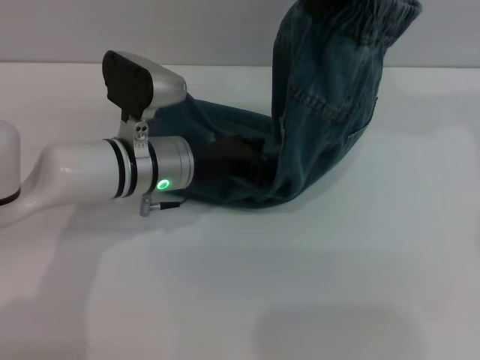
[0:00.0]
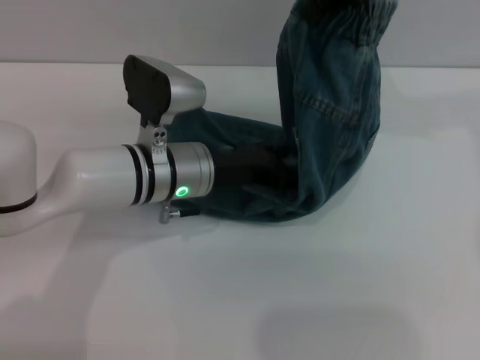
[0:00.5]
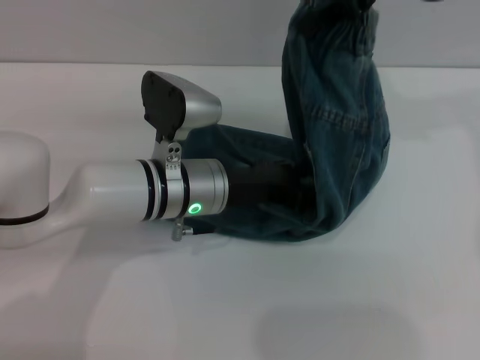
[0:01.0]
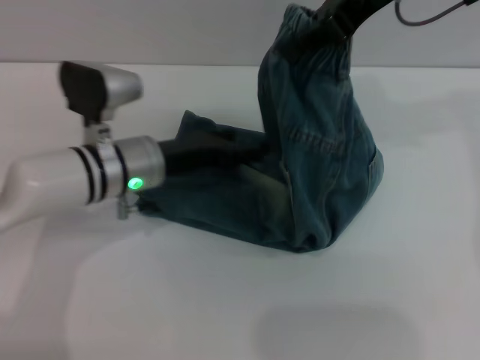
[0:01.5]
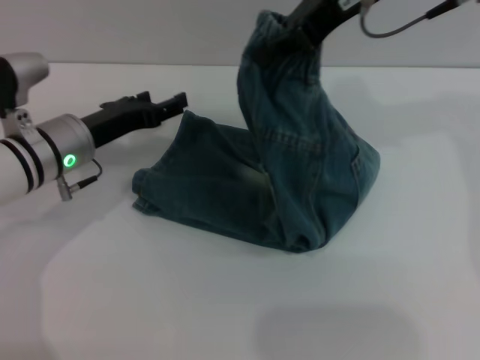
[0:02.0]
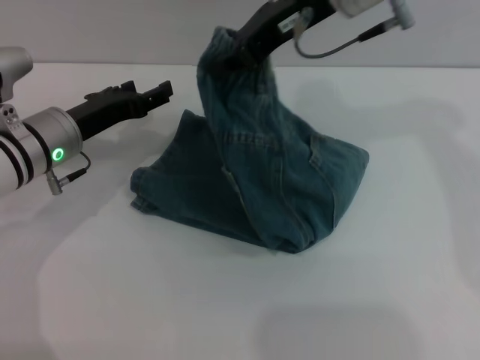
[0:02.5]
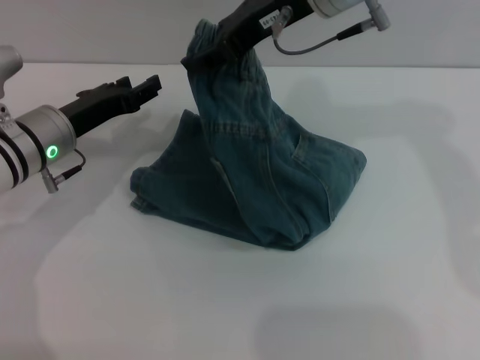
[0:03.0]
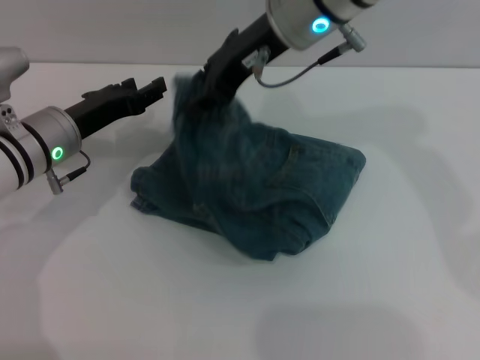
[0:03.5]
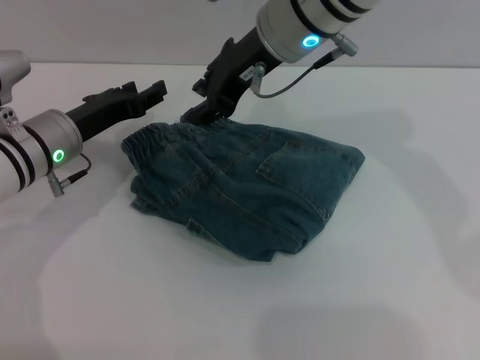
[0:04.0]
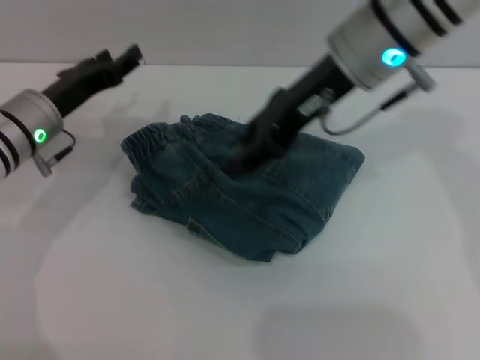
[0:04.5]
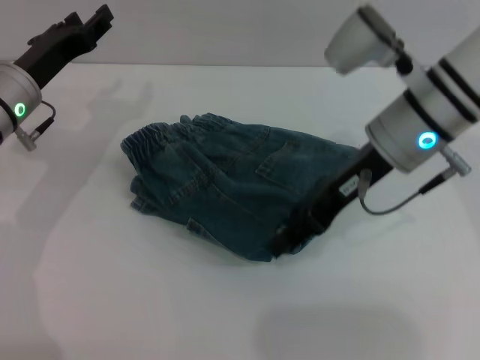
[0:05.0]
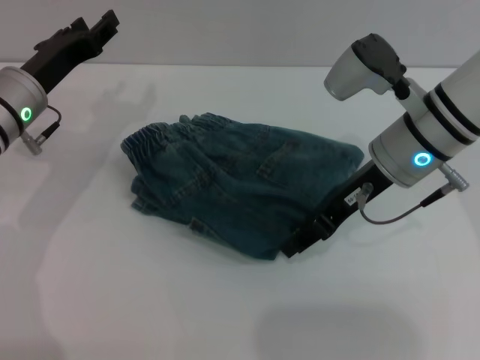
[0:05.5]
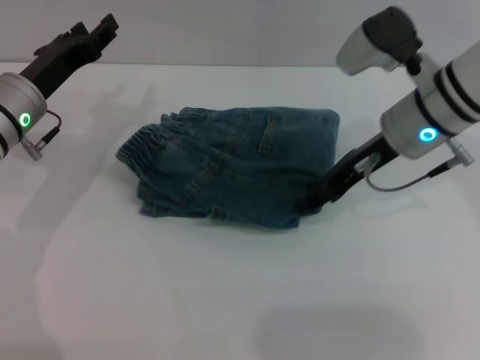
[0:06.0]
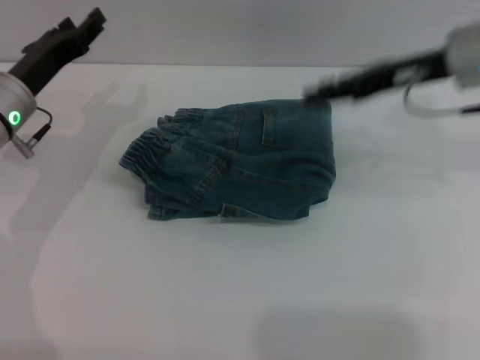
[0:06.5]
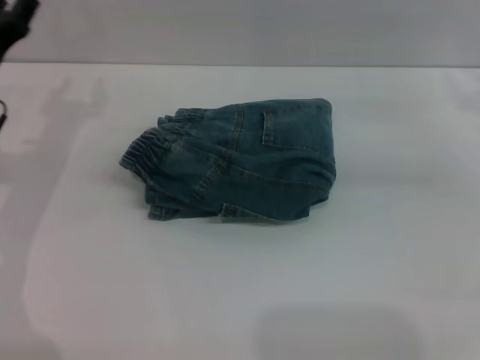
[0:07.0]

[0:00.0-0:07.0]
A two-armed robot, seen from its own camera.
Step, 0:00.0 to 0:03.5: Fold the pants from right to left with the right gripper.
Step, 0:04.0 to 0:06.5: Place the folded trousers onto the center area with the right grippers.
0:00.0 to 0:02.0: The left gripper is displaced to the left by approximately 10 cm. Meanwhile the right gripper is displaced downward by approximately 5 cm.
0:02.0 to 0:03.5: The right gripper is displaced to the left and downward by approximately 10 cm, and opens.
0:03.5 to 0:05.0: The right gripper shifts roughly 15 cm to the right, downward and backward.
0:05.0 to 0:07.0: The right gripper travels to the right by roughly 20 cm.

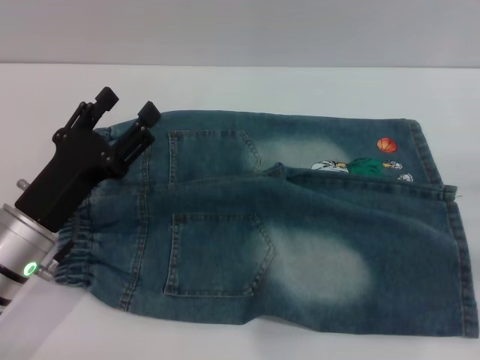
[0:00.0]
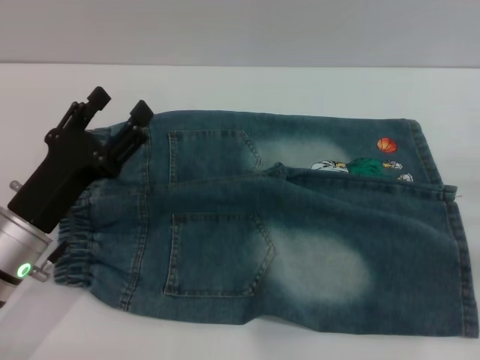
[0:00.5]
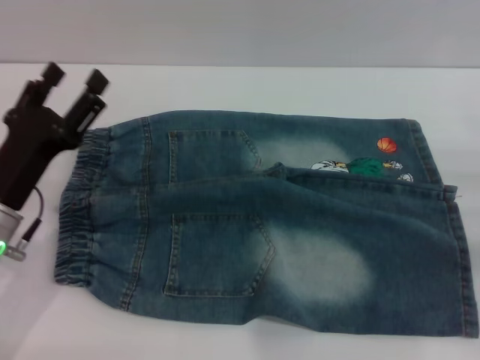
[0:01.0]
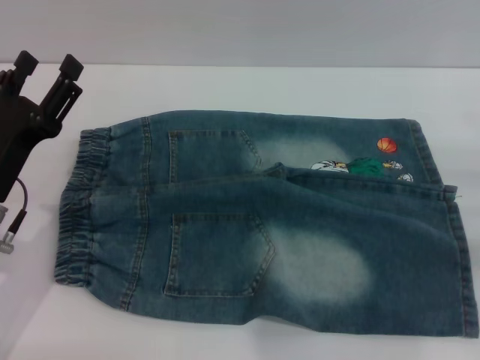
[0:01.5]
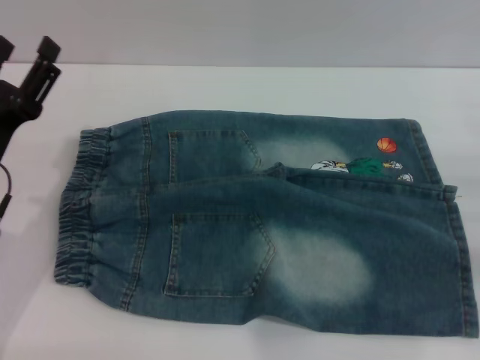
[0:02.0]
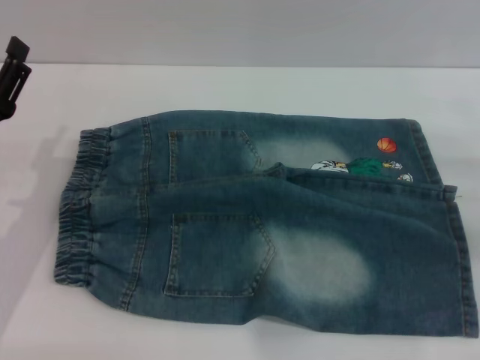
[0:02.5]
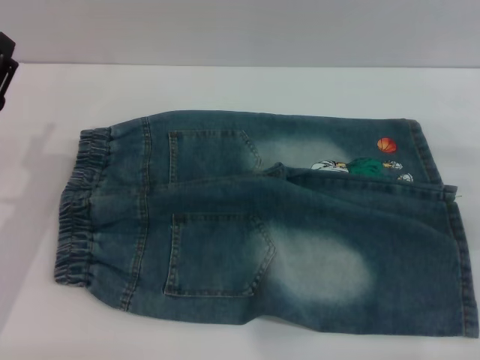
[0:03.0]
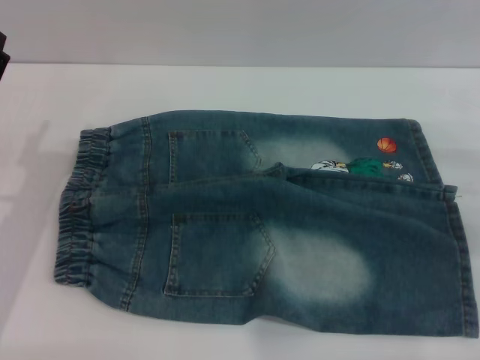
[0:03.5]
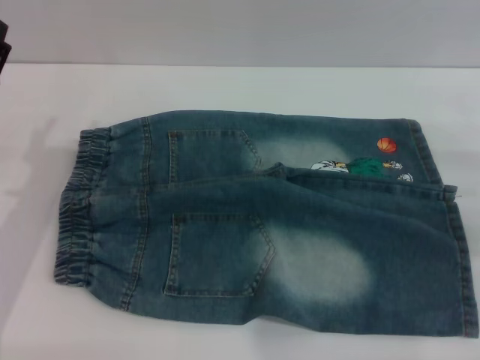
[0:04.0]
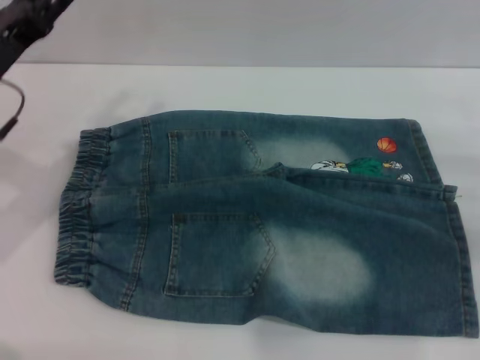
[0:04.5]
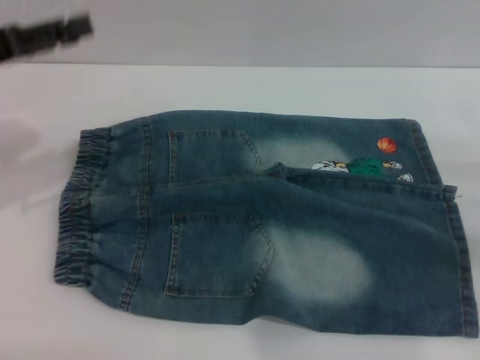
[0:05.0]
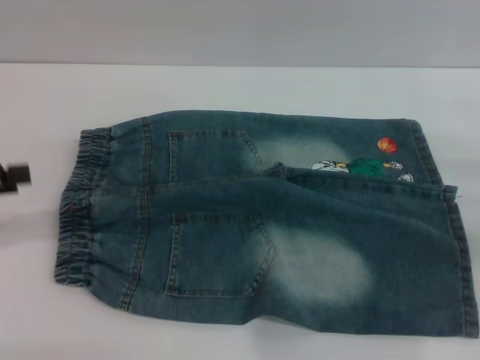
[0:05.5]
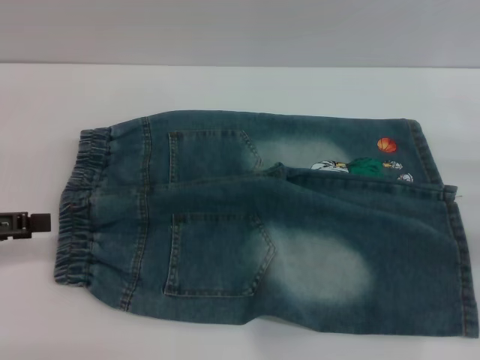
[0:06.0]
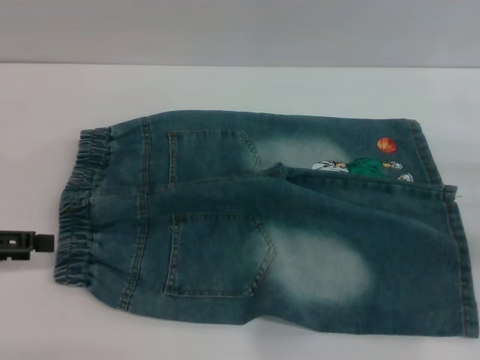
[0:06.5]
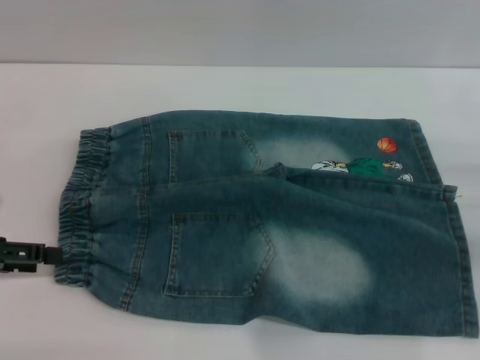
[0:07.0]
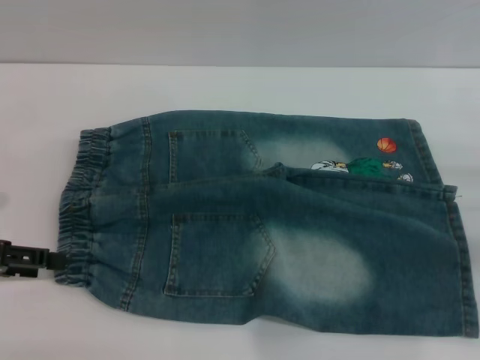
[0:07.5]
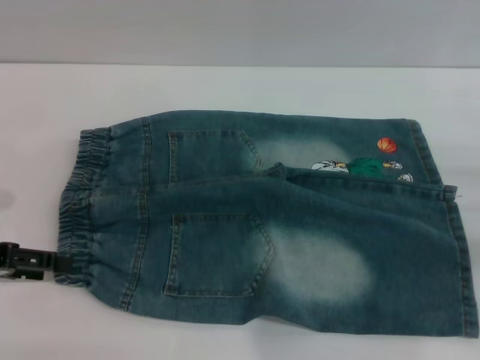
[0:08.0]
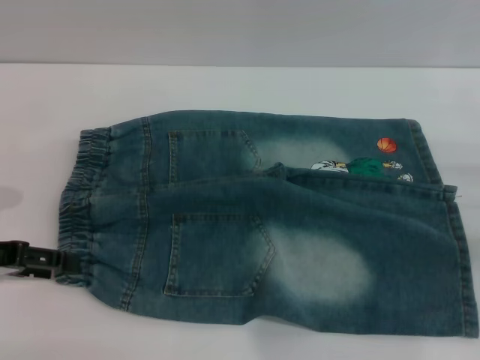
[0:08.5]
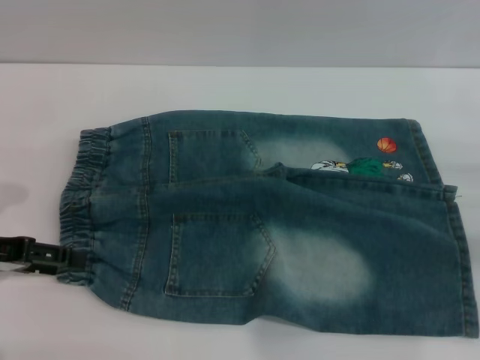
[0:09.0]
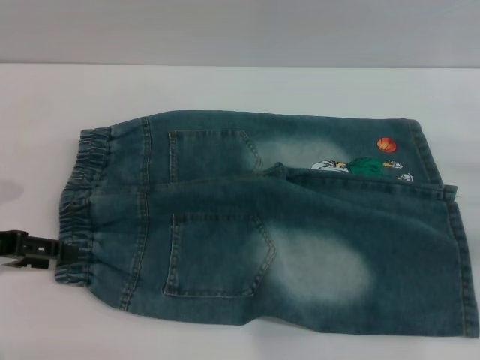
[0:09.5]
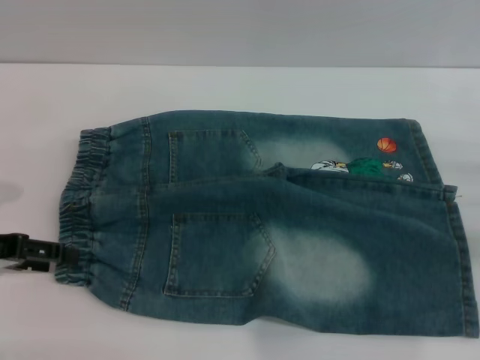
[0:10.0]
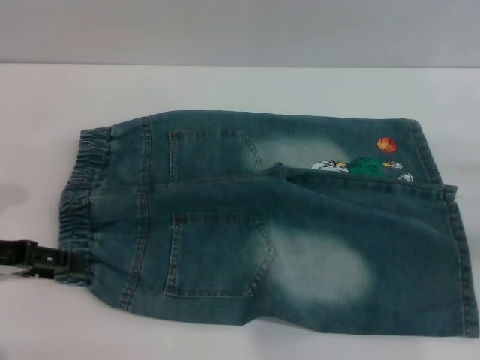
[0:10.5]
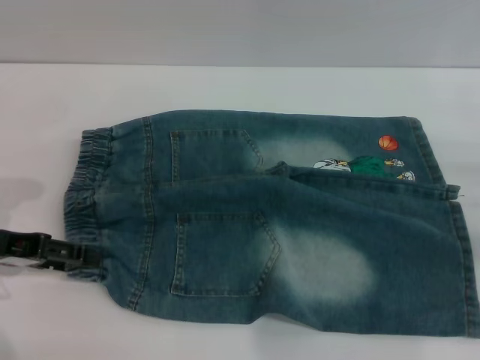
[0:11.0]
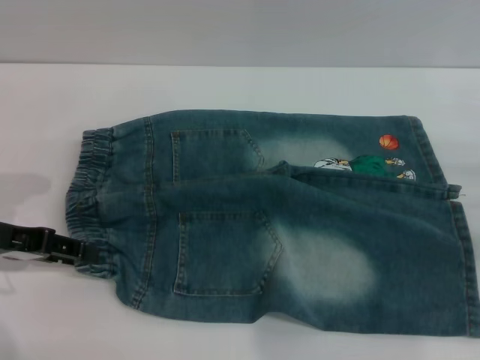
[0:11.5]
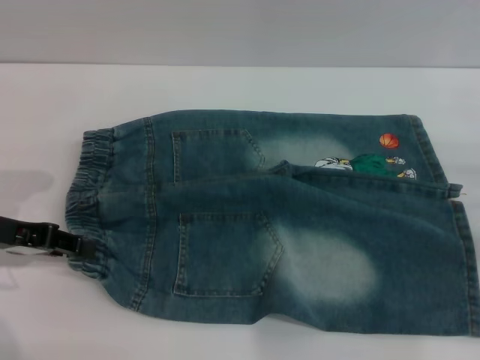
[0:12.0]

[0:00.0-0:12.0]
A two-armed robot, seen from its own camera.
0:00.0 to 0:02.0: The left gripper moves approximately 5 cm.
0:02.0 to 0:04.0: The grippers make only small movements.
0:04.0 to 0:06.0: The left gripper travels to the left and upward by some 10 cm.
0:06.0 to 0:10.0: The grippers move only a little.
0:10.0 to 0:12.0: The left gripper closes.

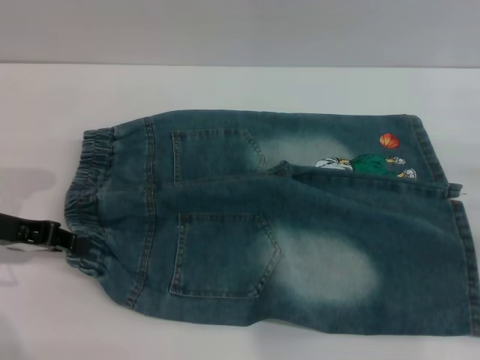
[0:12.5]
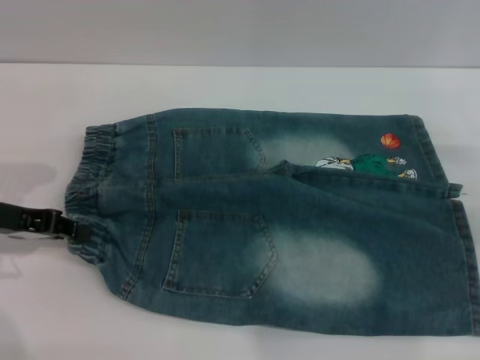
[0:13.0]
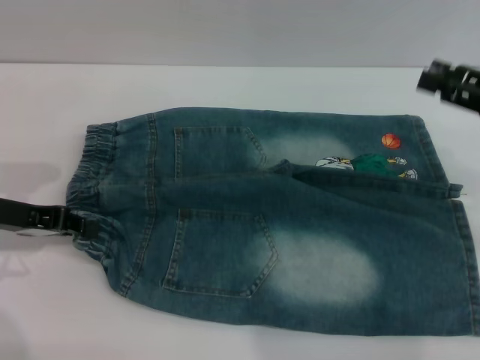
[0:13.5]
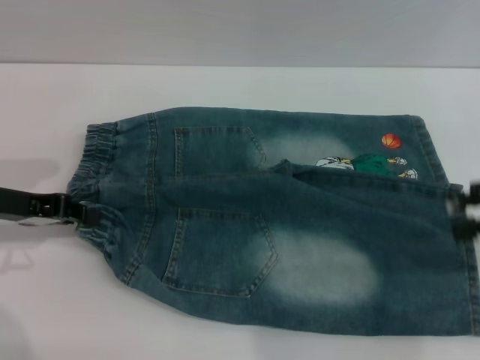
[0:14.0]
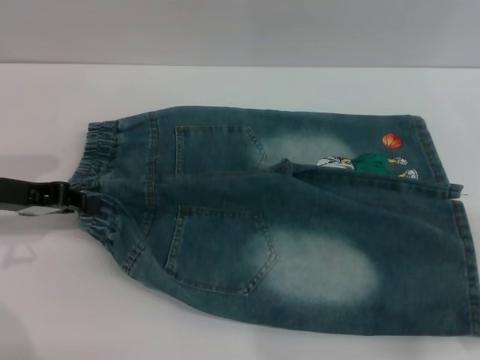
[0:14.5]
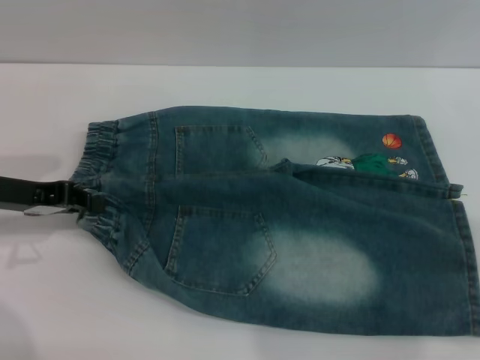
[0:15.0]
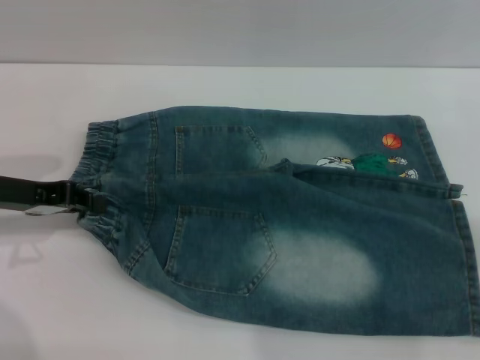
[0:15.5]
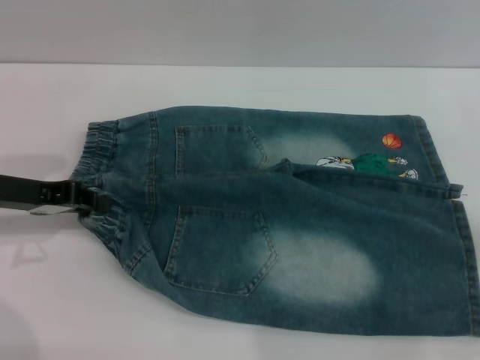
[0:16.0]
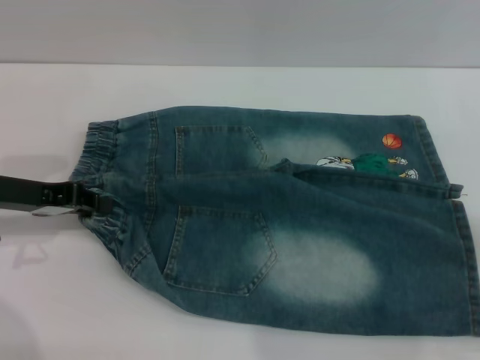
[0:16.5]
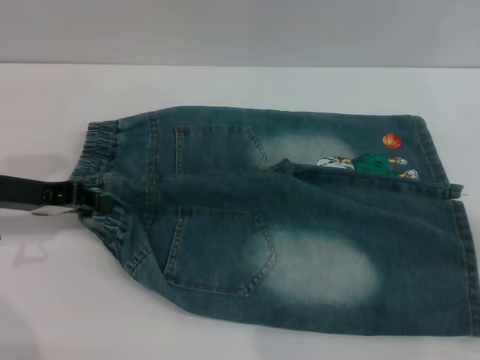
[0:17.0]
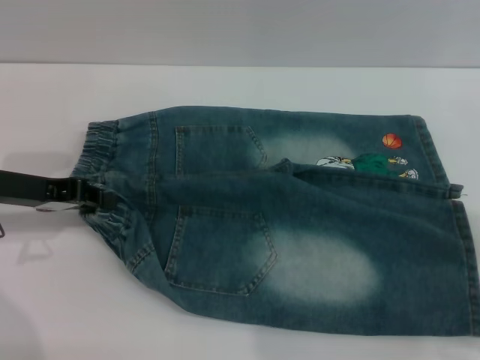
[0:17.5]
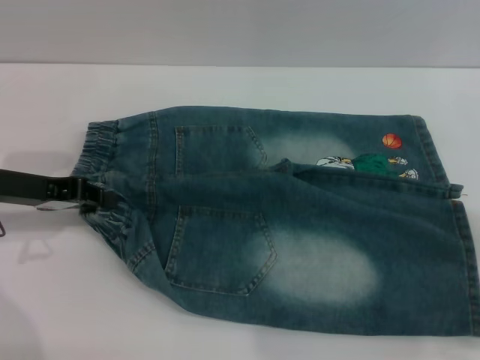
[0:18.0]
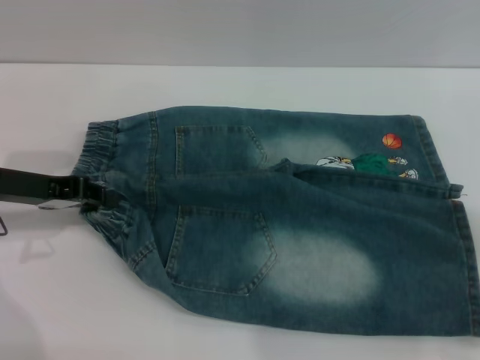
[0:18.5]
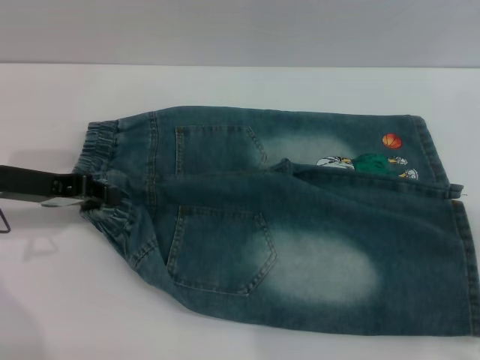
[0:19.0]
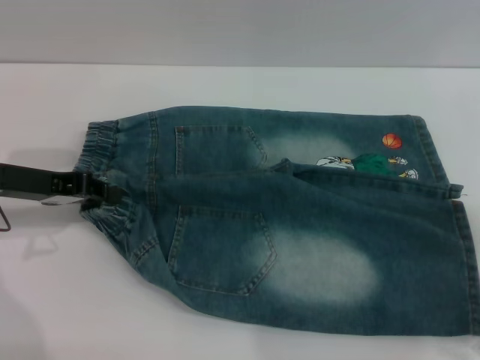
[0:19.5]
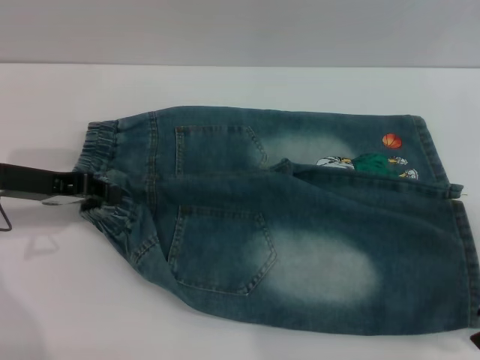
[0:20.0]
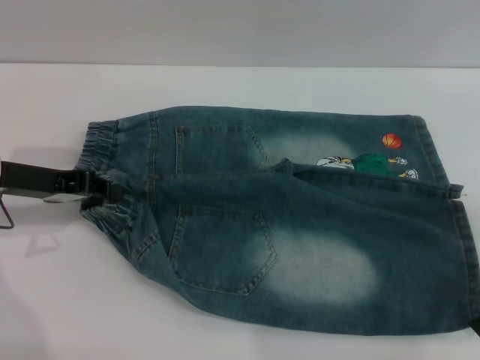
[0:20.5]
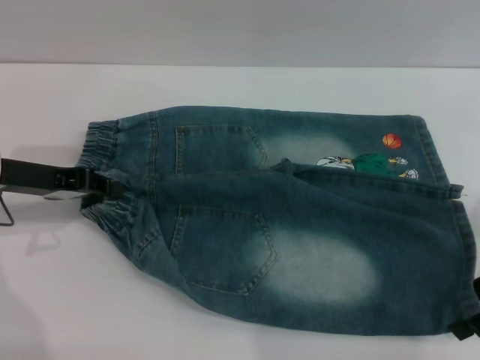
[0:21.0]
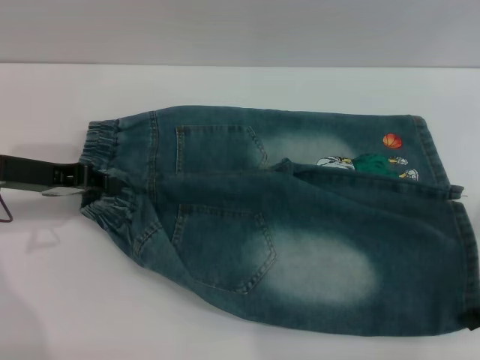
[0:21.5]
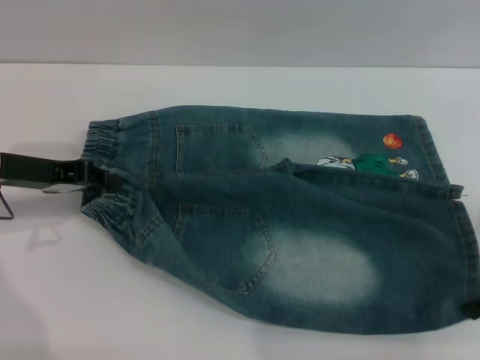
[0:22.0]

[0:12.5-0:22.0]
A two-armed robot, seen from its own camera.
0:12.5 to 0:14.5: The right gripper heads upward, covering some 10 cm.
0:16.5 to 0:20.0: The grippers make only small movements.
0:20.0 to 0:22.0: The right gripper closes its fingers.
